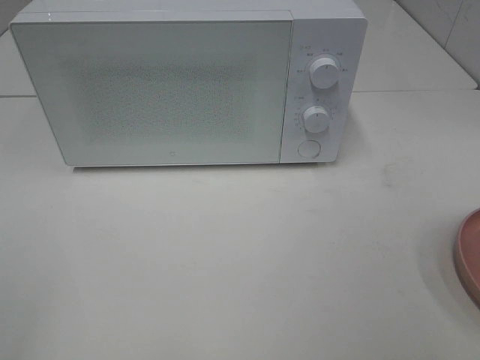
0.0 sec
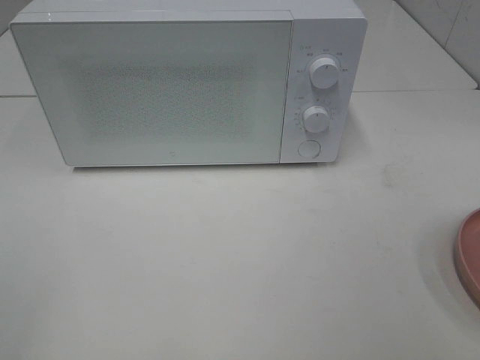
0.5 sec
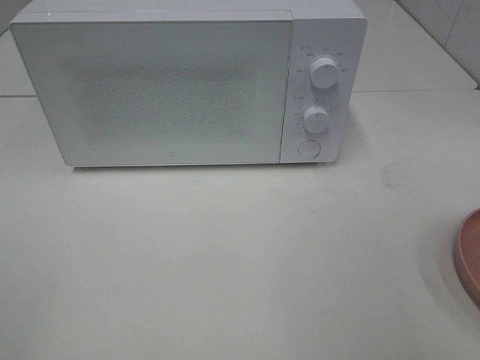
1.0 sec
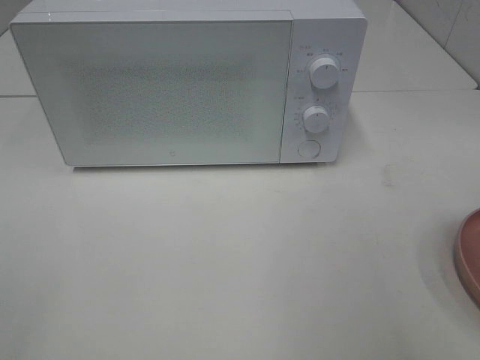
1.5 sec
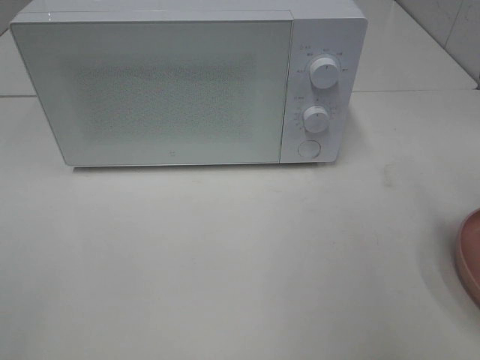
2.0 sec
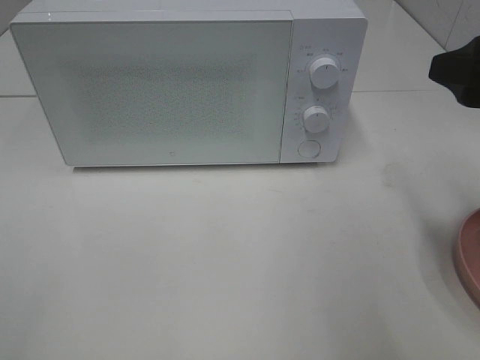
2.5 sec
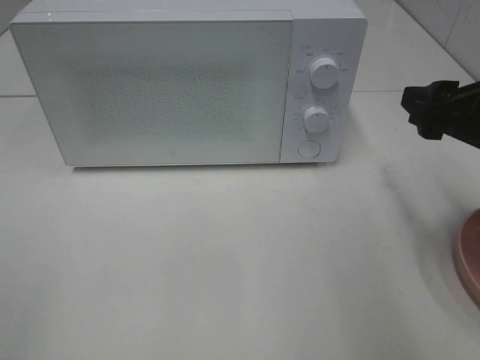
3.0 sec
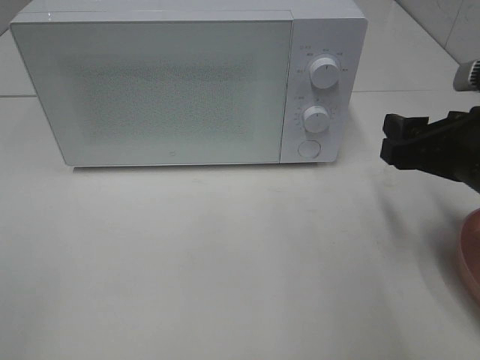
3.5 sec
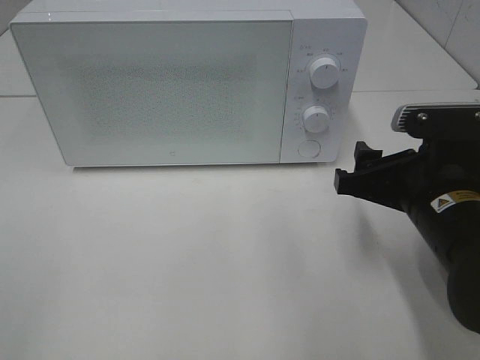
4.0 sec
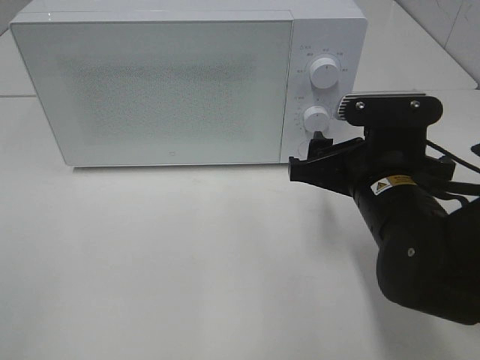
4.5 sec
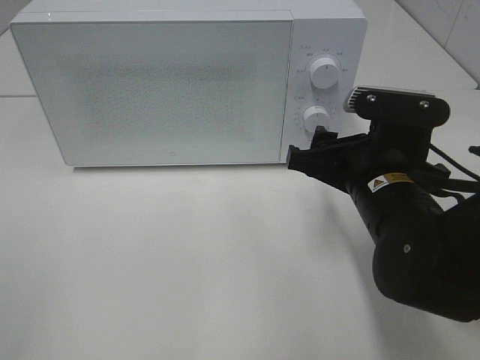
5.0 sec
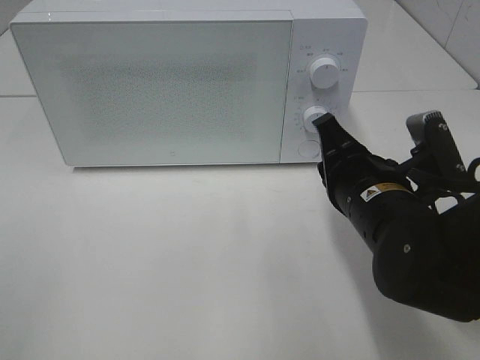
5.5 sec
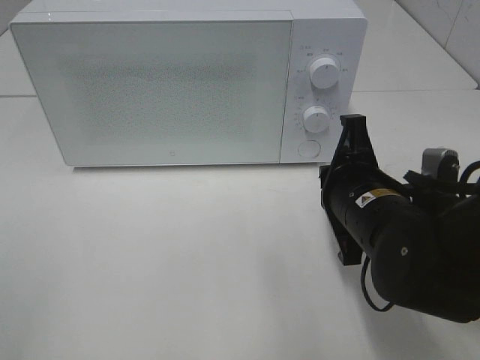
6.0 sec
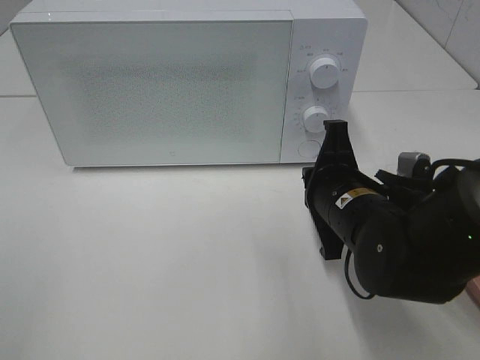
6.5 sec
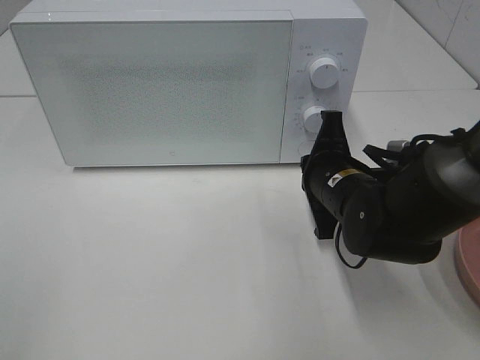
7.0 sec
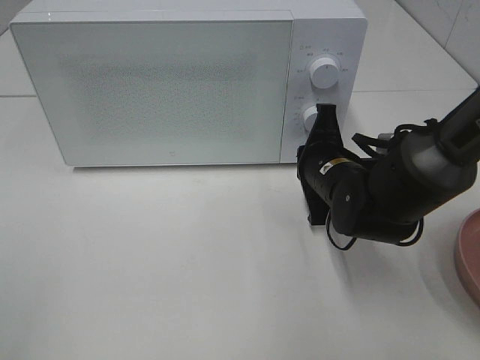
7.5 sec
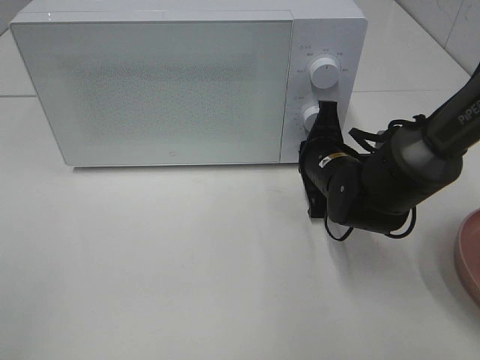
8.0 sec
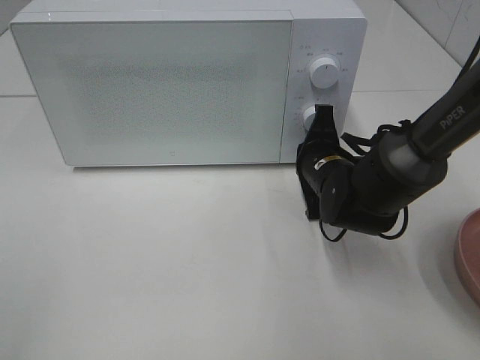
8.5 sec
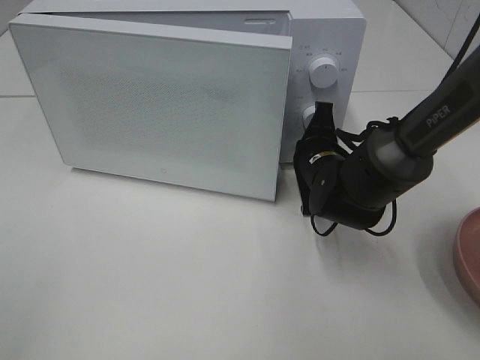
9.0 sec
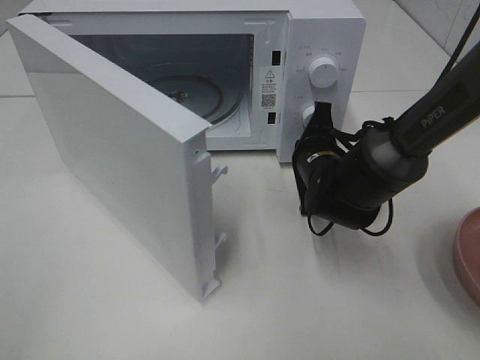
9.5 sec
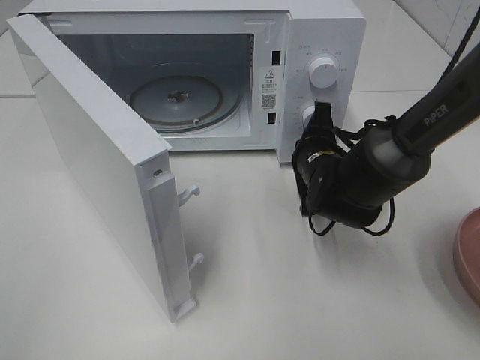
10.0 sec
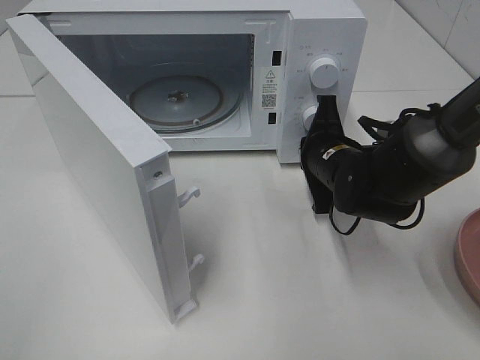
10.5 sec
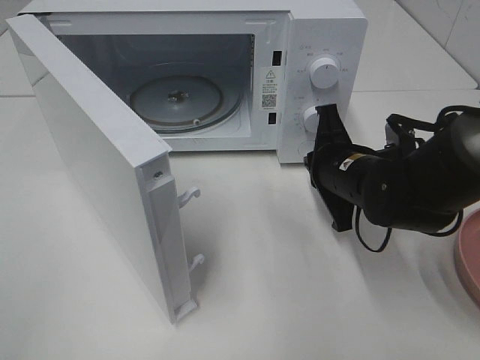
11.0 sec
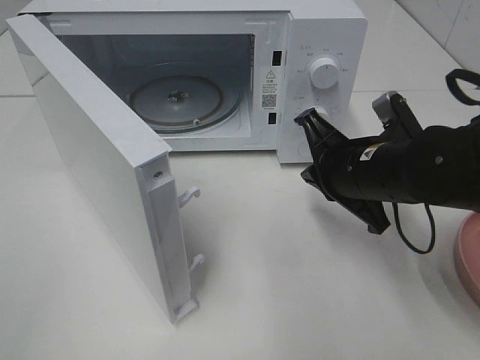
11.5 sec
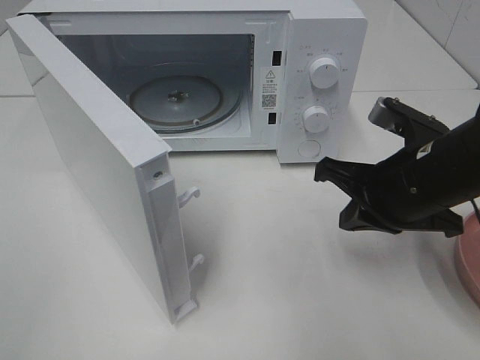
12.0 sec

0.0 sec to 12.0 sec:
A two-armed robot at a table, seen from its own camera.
Task of the whole recording: Heat the burger.
Step, 0.0 sec to 10.5 sec: Right hand: press the switch.
2.0 sec to 4.0 sec: The right gripper travels downward and to the left by some 15 cm.
4.0 sec to 6.0 sec: The right gripper shifts by some 5 cm, and closes its fingers.
6.0 sec to 8.0 sec: The right gripper travels forward by about 10 cm.
10.0 sec to 12.0 sec: The right gripper heads backward, upward and to the right, covering approximately 15 cm.

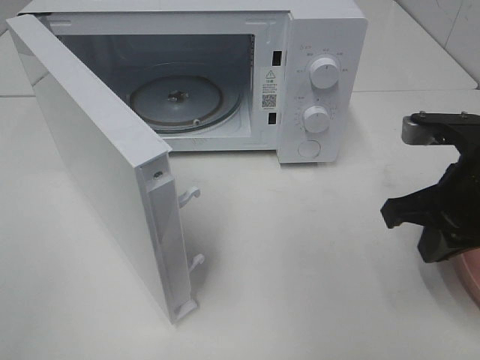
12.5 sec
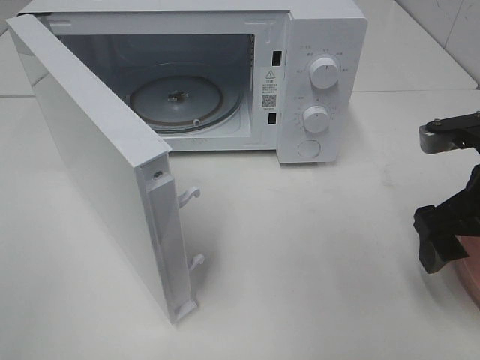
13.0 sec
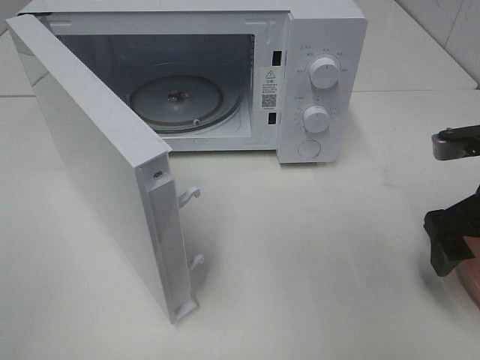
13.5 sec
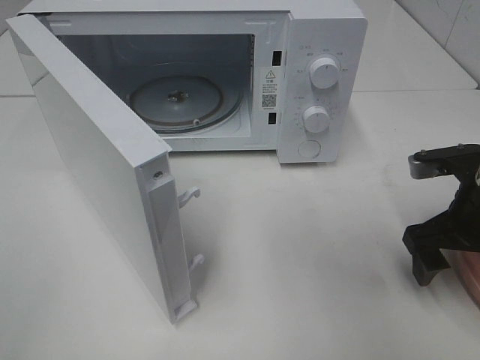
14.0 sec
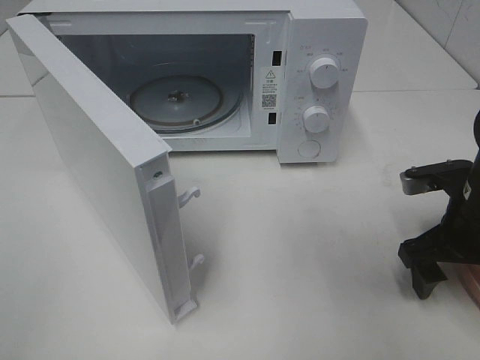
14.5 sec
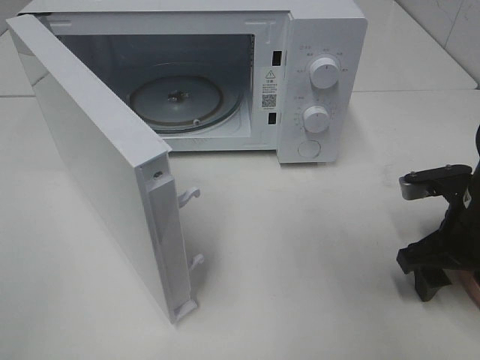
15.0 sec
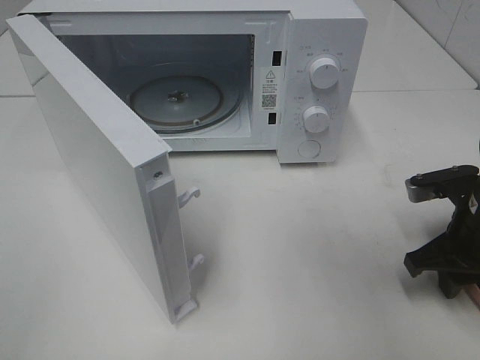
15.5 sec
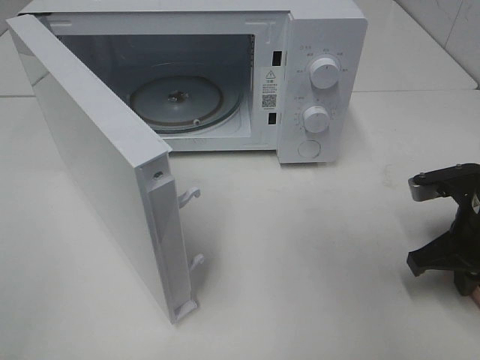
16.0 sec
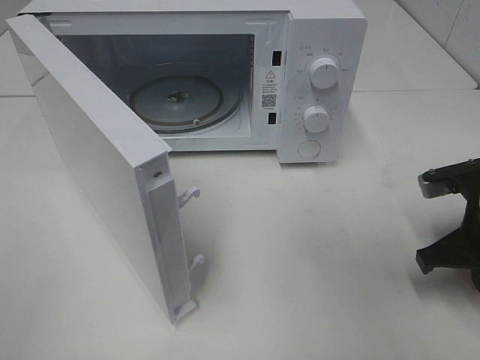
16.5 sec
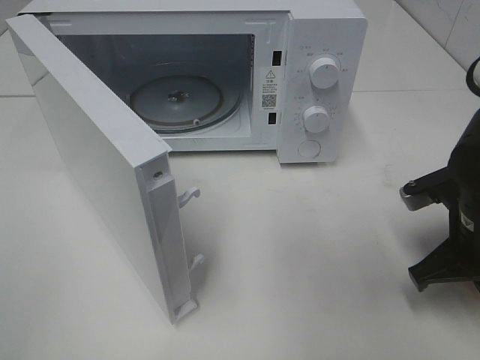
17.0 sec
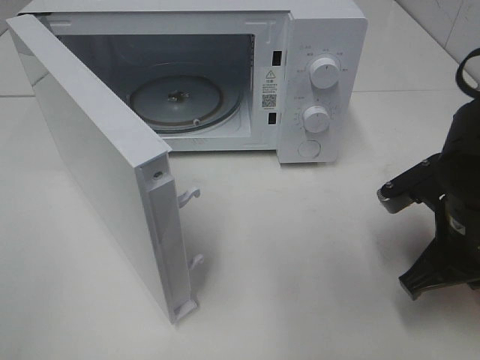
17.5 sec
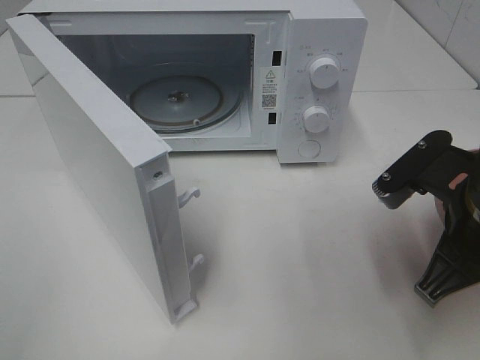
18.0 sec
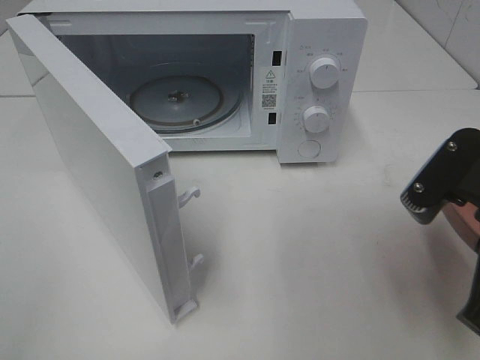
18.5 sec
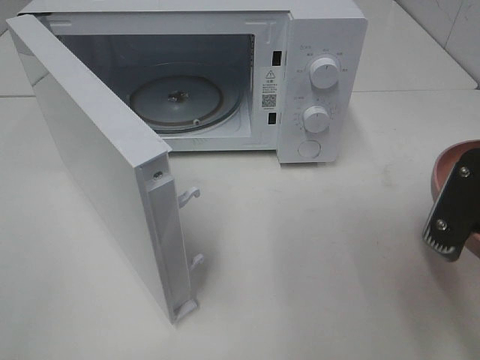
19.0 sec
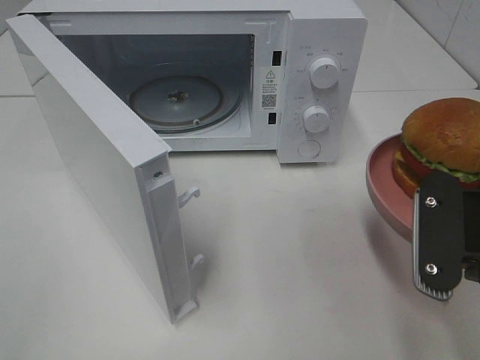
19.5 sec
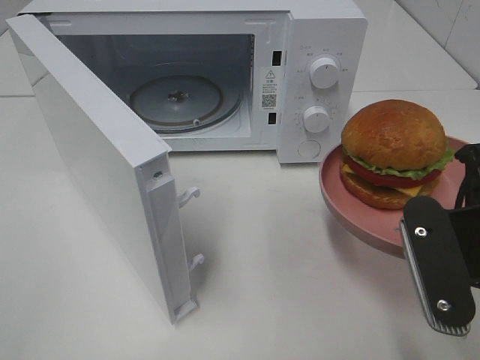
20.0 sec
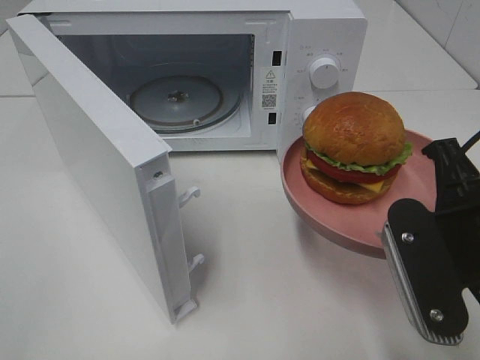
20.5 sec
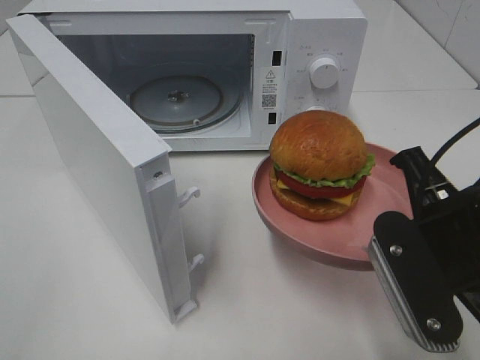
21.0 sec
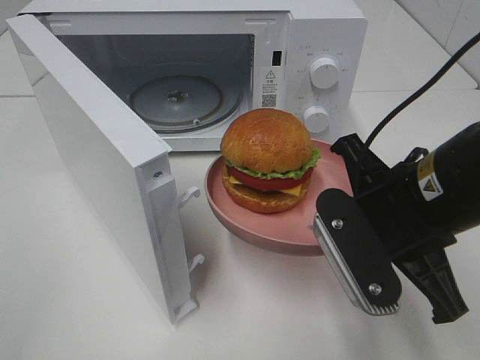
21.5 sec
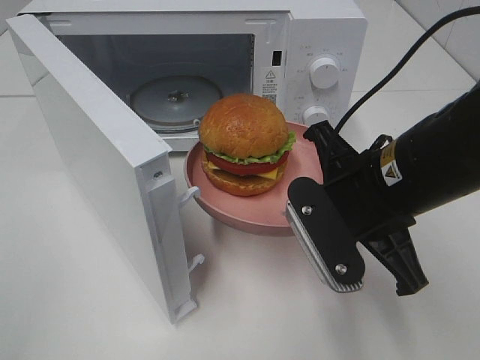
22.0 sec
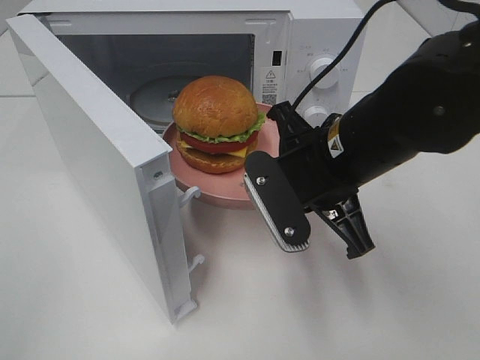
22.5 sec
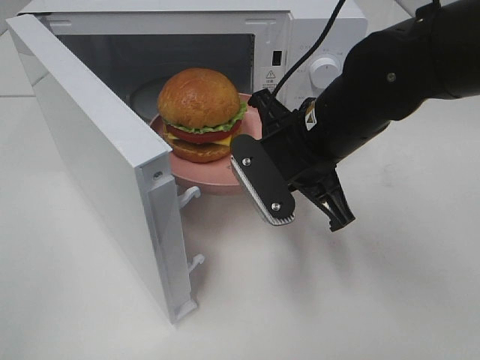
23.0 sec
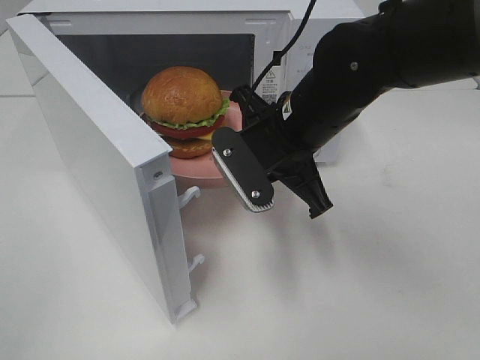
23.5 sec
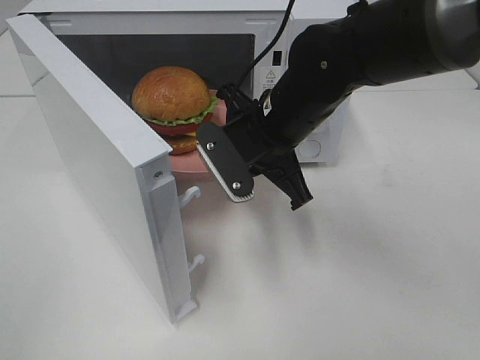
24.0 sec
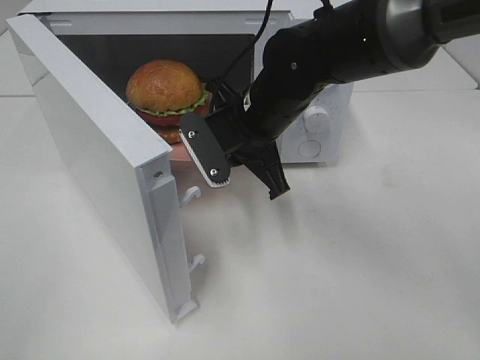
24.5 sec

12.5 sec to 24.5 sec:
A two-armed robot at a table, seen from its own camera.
Task of the whole recording: Heat the burger.
Step, 12.5 sec to 16.0 sec: Right hand: grab the plate with the hamburger.
12.5 sec to 14.5 sec: The right gripper heads downward, covering some 10 cm, and opens.
14.5 sec to 16.5 sec: The right gripper closes its fingers.
16.5 sec to 18.5 sec: The right gripper goes approximately 15 cm upward, backward and to the left.
20.5 sec to 22.5 sec: The right gripper heads forward and to the left, covering approximately 15 cm.
22.5 sec to 24.5 sec: The right gripper shifts roughly 10 cm forward and to the left.

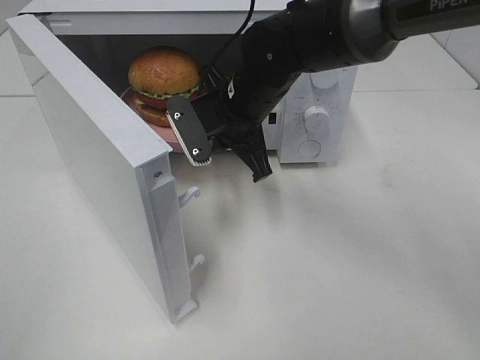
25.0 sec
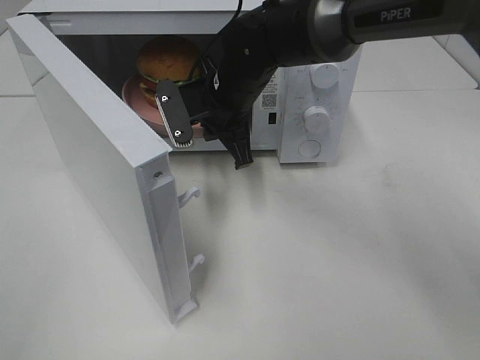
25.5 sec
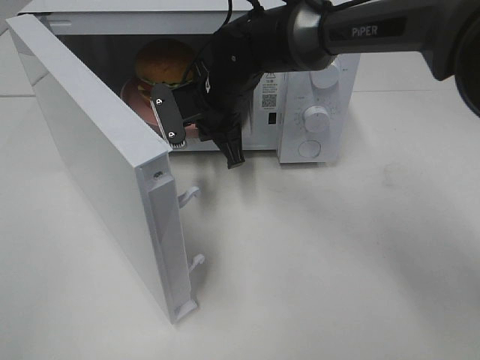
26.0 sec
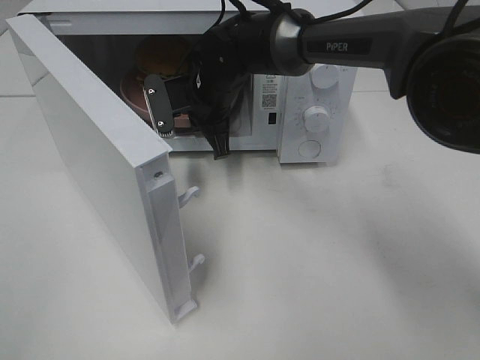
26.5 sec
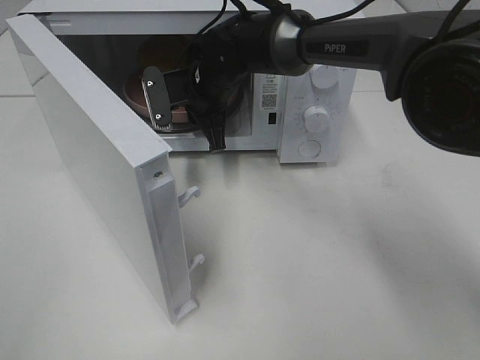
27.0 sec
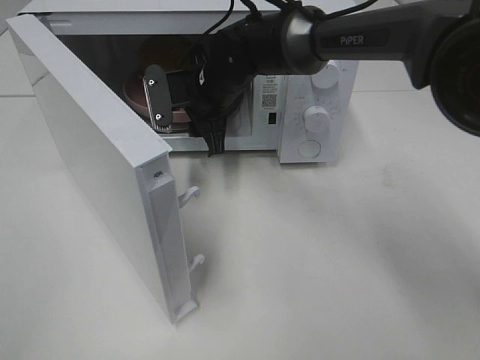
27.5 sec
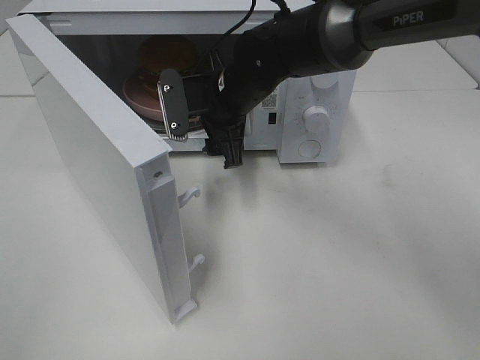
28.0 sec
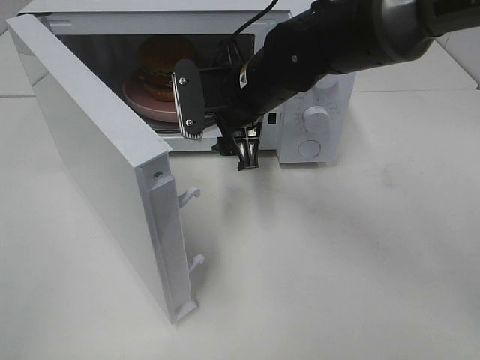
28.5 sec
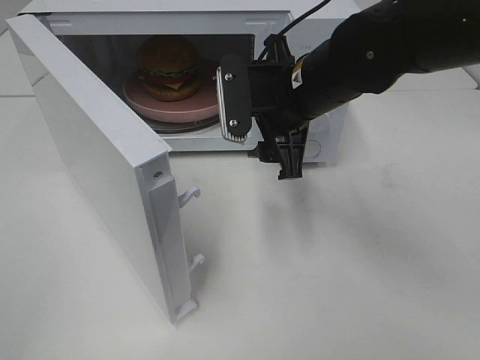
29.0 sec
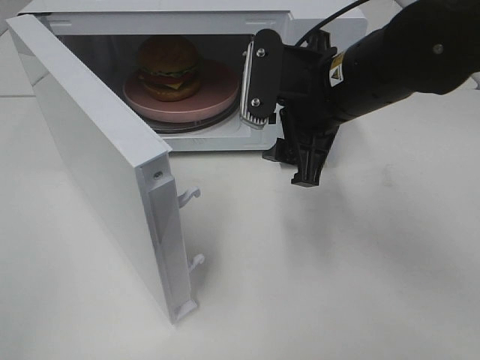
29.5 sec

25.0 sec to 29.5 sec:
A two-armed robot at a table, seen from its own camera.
Task of the whole recording: Heat the burger.
Step, 25.0 sec to 27.0 sec: Right hand: place the plate in the microwave.
25.0 sec to 27.0 sec: The right gripper goes roughly 10 cm forward.
27.0 sec to 29.5 sec: The right gripper goes roughly 20 cm backward, to the right and upward, and opens.
